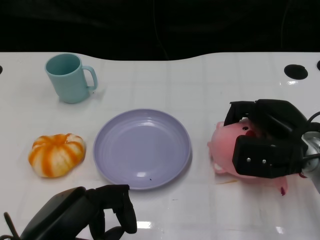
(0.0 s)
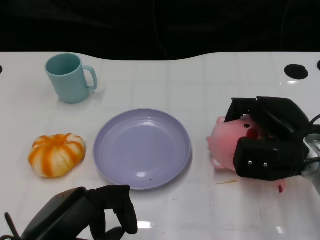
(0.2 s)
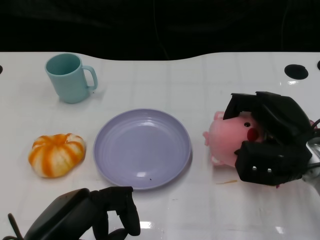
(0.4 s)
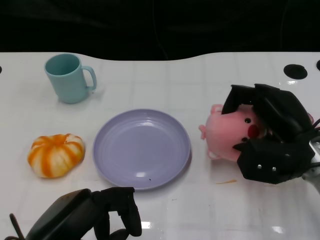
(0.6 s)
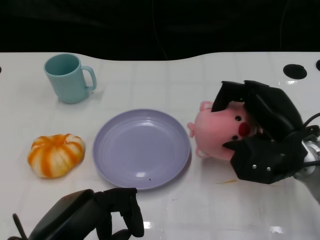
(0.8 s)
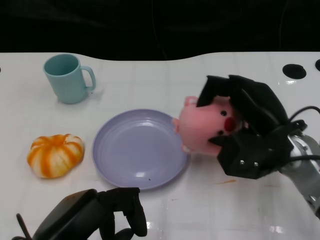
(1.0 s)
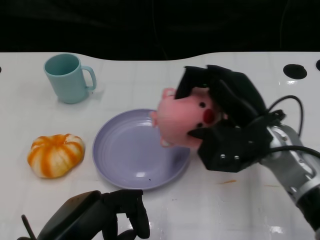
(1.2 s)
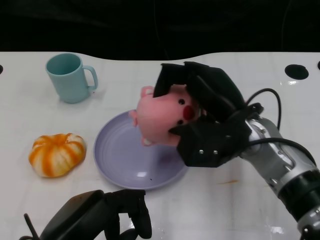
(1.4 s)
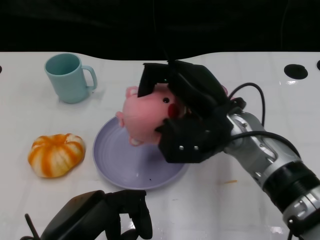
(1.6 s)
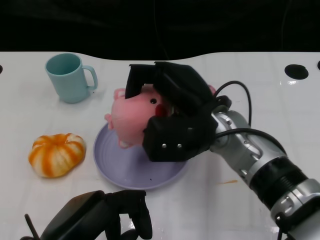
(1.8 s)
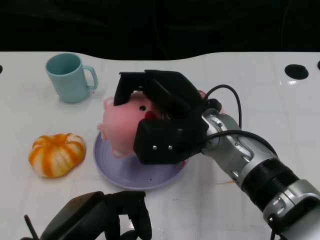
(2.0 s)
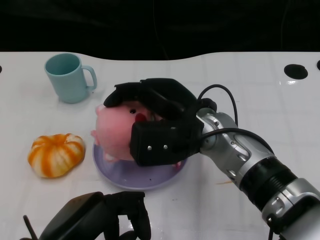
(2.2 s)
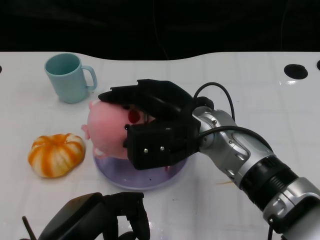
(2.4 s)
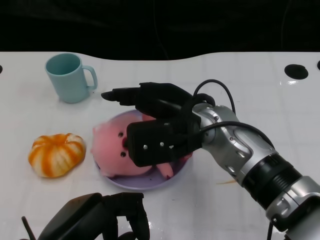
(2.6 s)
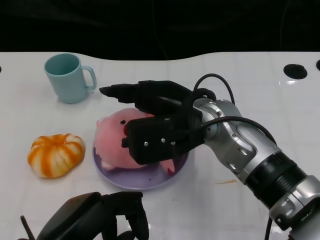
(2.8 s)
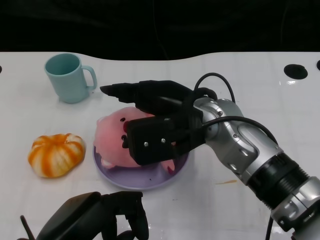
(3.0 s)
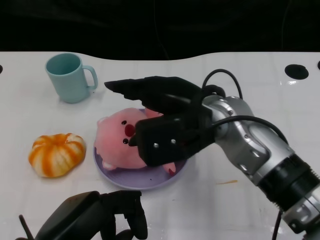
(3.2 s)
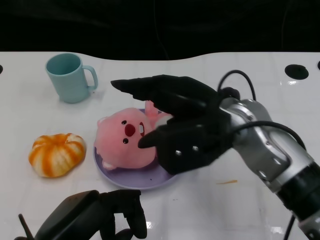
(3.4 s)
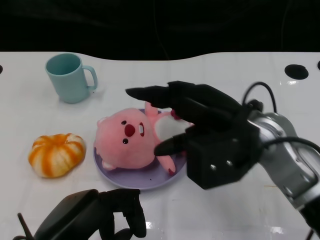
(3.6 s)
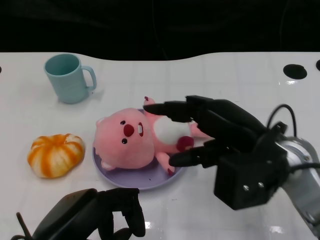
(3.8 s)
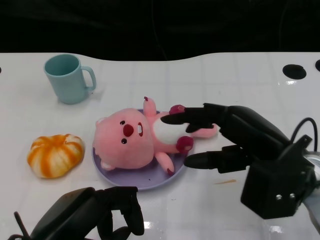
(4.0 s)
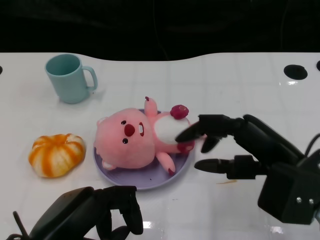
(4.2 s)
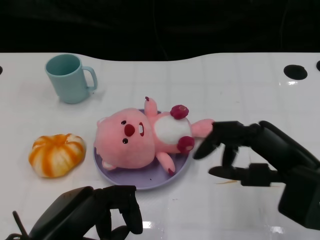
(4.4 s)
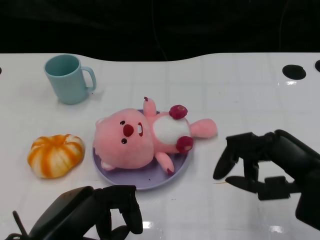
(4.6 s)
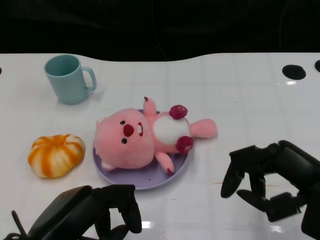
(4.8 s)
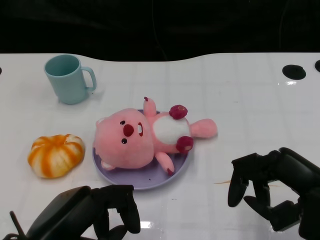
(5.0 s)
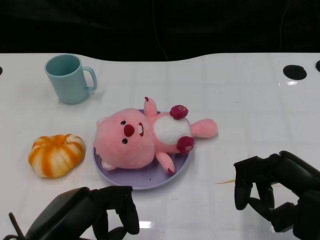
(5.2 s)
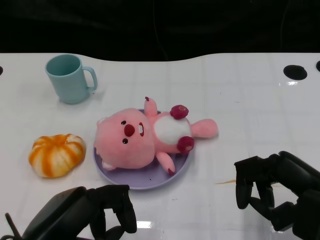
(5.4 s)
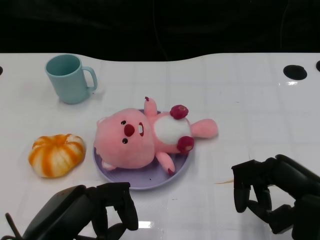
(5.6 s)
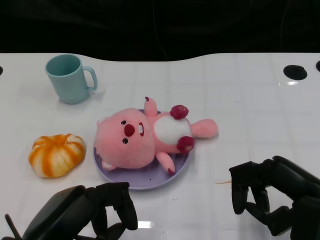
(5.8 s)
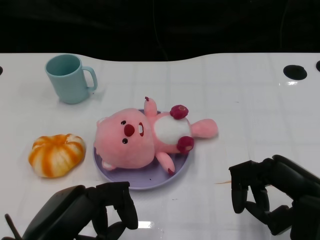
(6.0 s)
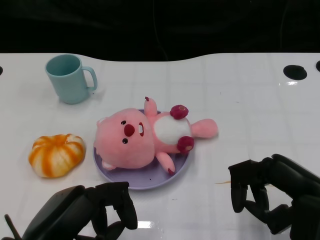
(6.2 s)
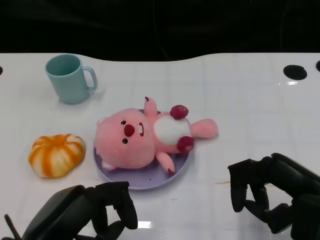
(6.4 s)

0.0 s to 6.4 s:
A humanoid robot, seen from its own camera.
Task of the whole recording: Pick up the doll on the other side of the plate and place it into the plate.
Step, 1.2 to 4.2 s: Place the pink doll into the plate with the right gripper.
0.0 to 1.6 s: The right hand shifts about 10 cm to the left.
3.2 to 4.8 s: The right hand shifts about 20 cm to the right and backward.
4.8 to 6.4 s: The hands make only small movements.

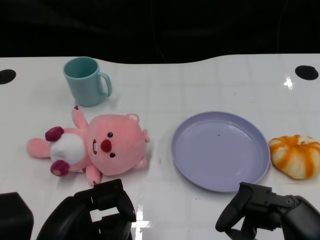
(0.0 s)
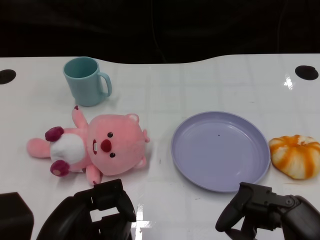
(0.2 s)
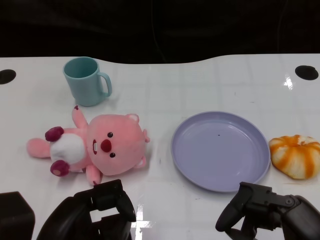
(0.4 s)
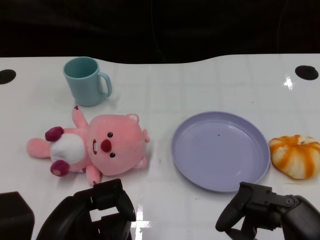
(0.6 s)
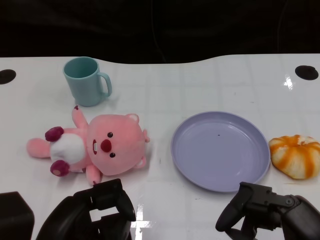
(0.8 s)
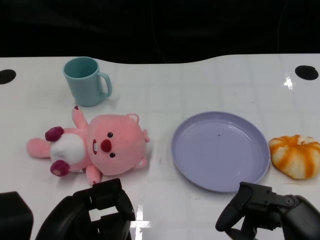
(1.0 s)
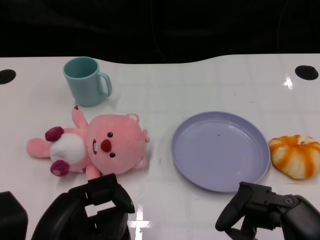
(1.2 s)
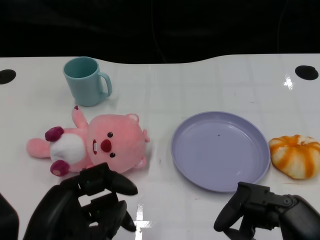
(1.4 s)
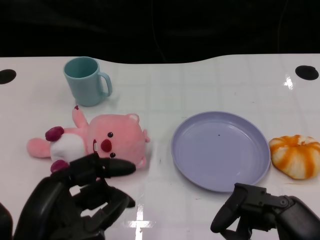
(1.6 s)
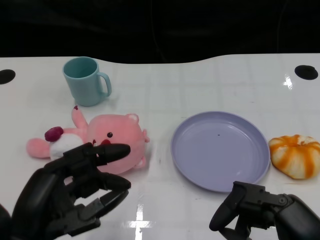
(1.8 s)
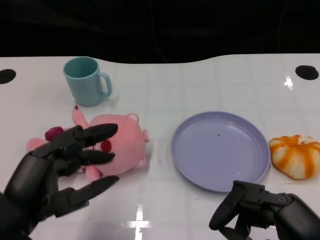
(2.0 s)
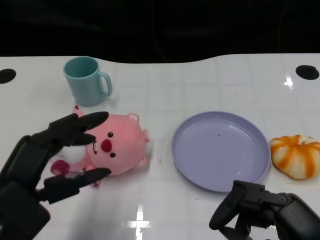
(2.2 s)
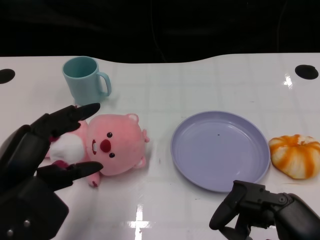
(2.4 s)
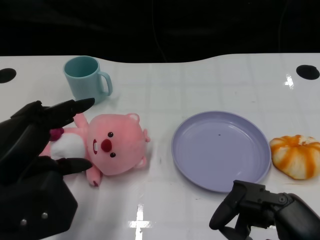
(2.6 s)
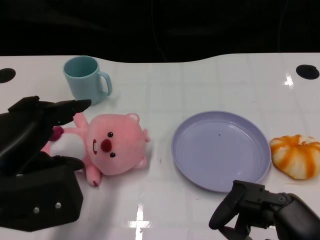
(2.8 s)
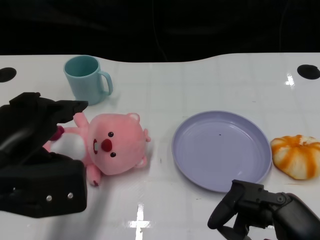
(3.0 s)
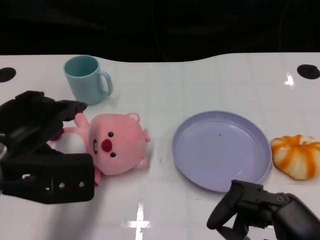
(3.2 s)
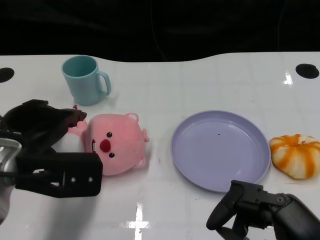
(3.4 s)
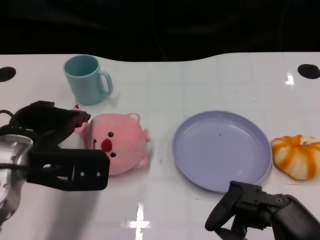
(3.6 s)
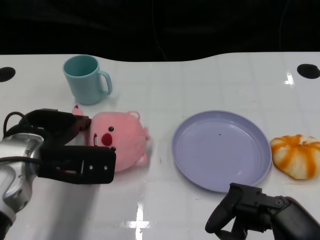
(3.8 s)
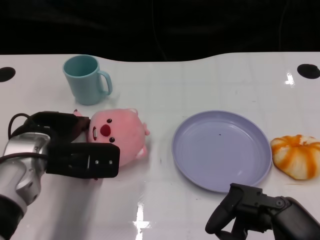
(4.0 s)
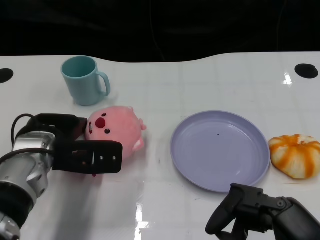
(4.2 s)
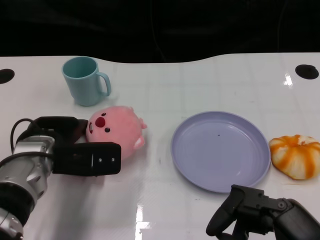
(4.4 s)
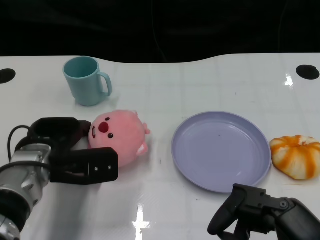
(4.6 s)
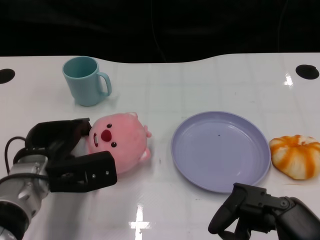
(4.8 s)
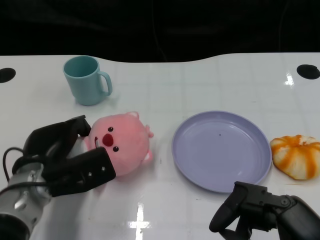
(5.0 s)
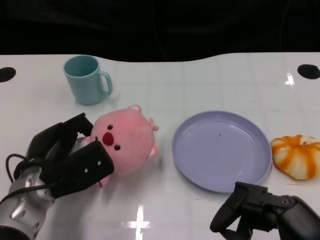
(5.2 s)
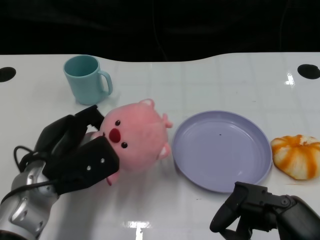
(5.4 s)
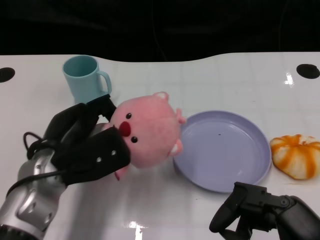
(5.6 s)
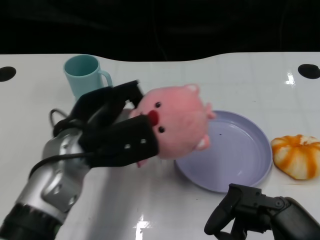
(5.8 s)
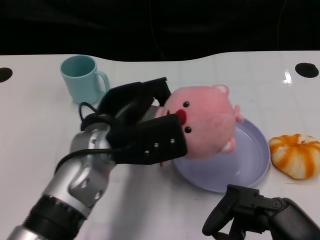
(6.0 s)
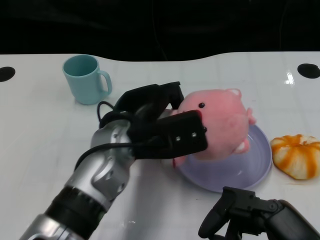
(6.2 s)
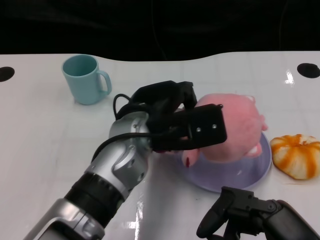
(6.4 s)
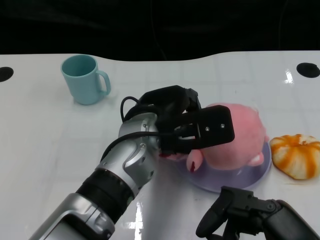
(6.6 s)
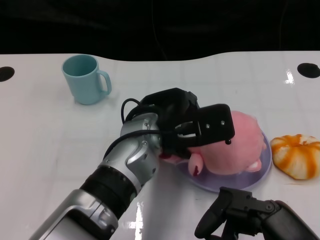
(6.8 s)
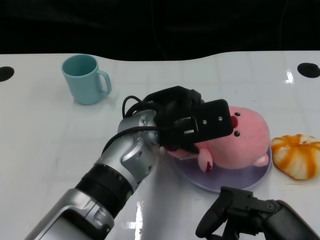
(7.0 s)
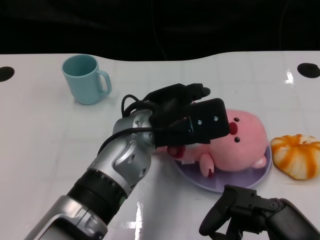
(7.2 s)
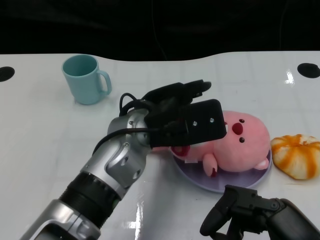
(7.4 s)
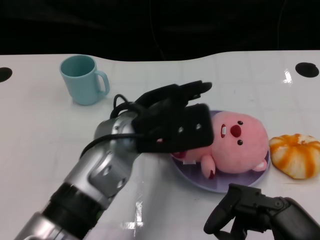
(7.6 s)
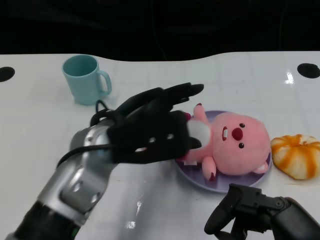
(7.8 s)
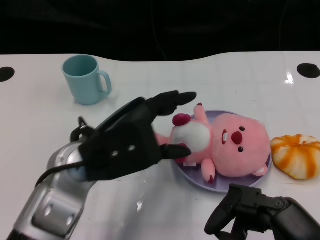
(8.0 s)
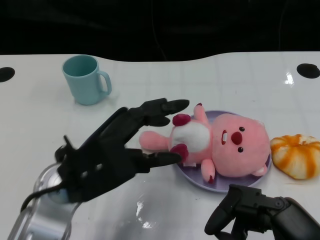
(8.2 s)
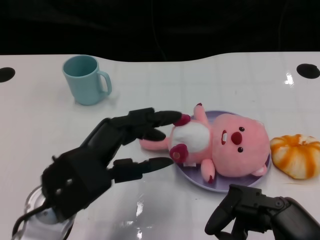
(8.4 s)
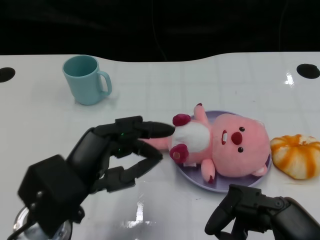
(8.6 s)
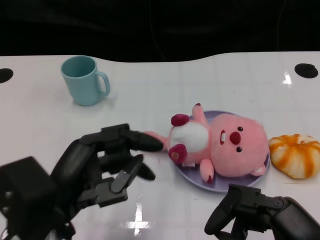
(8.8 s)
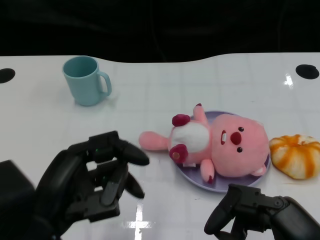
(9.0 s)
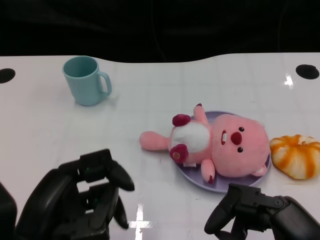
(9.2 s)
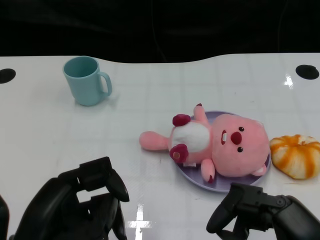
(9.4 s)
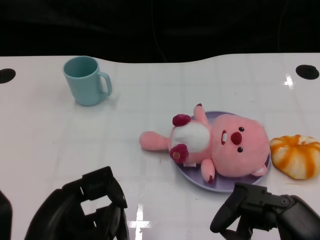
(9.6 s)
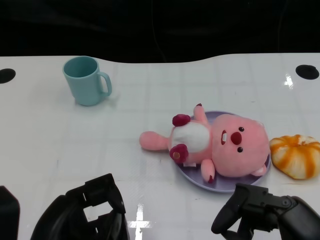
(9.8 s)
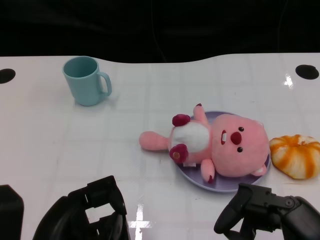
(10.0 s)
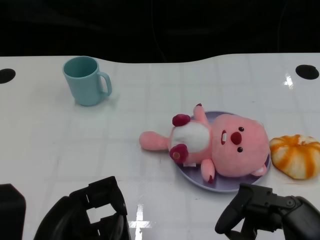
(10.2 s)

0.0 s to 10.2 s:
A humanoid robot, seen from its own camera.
Task of the whole recording: Pick up the doll on one side of the plate and place it into the plate.
Step, 1.0 to 5.0 s: Grasp the pink doll with the left gripper.
Step, 5.2 to 7.2 s: Place the pink doll into the plate with the left gripper.
1.4 to 3.0 s: The left hand travels forward and upward by some 10 cm.
3.0 to 4.4 s: The left hand goes about 15 cm forward and downward.
4.4 to 5.8 s: The left hand moves some 5 cm.
5.8 to 7.2 s: The left hand moves to the right, about 10 cm.
7.2 to 8.8 s: The left hand heads to the left and backward, covering approximately 20 cm.
8.8 to 10.2 s: The left hand moves backward, about 5 cm.

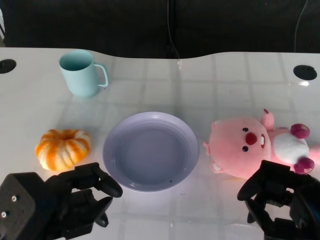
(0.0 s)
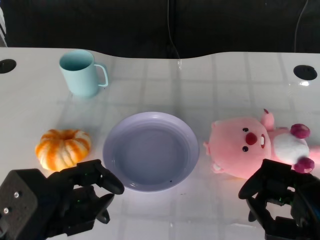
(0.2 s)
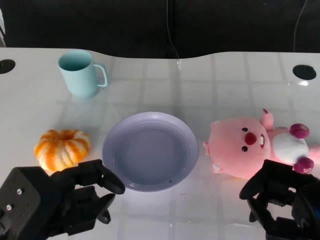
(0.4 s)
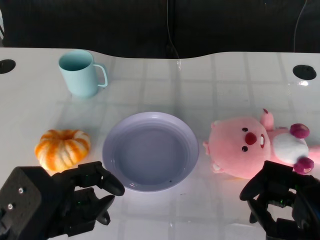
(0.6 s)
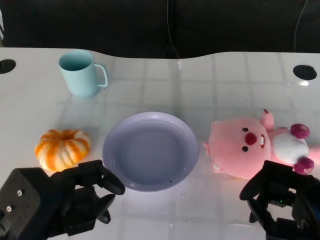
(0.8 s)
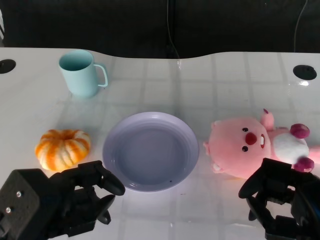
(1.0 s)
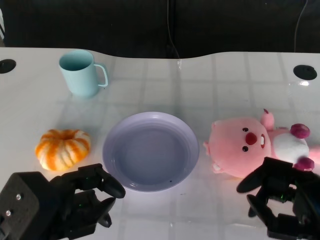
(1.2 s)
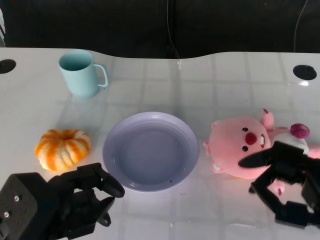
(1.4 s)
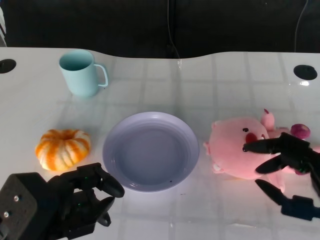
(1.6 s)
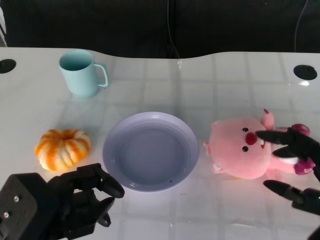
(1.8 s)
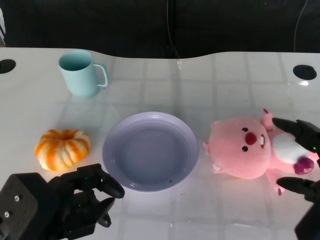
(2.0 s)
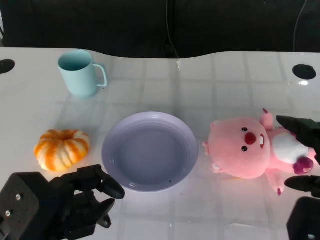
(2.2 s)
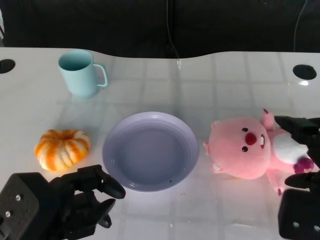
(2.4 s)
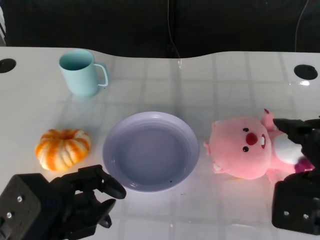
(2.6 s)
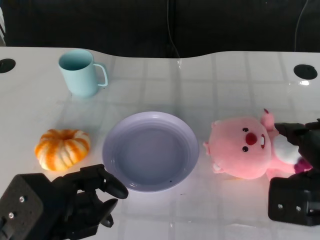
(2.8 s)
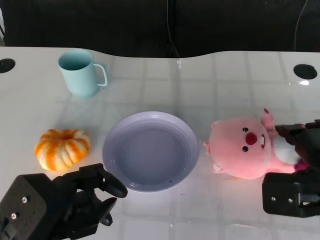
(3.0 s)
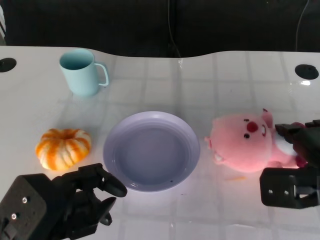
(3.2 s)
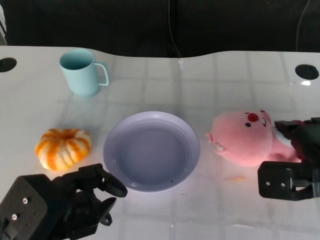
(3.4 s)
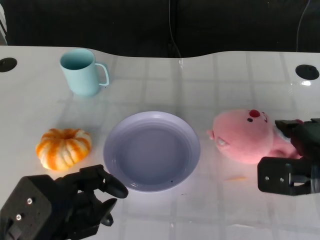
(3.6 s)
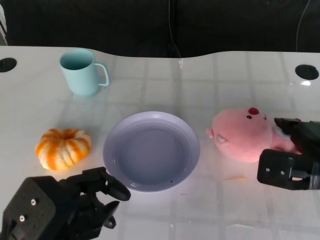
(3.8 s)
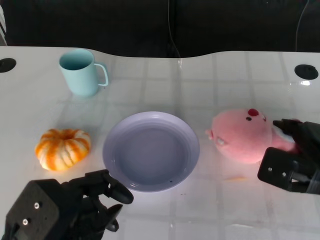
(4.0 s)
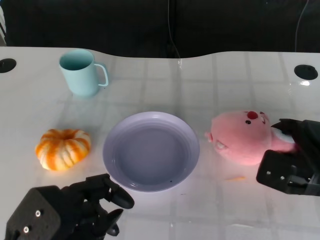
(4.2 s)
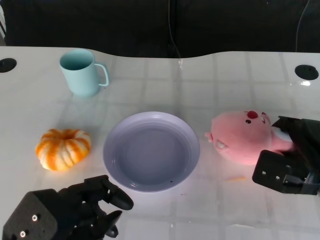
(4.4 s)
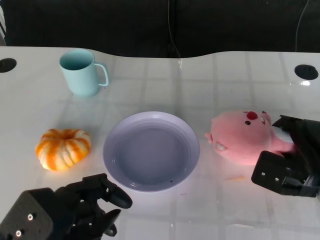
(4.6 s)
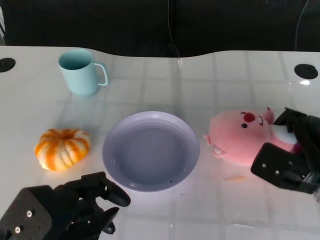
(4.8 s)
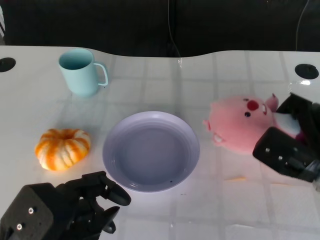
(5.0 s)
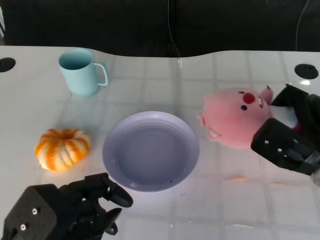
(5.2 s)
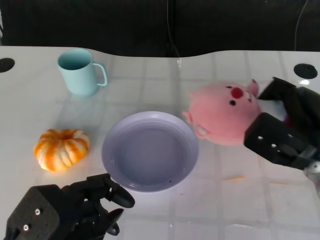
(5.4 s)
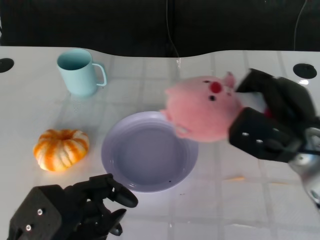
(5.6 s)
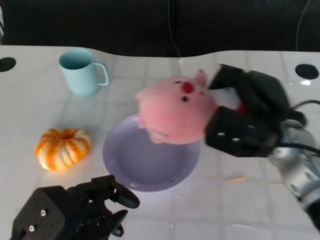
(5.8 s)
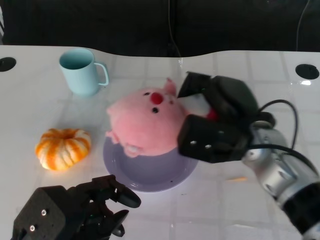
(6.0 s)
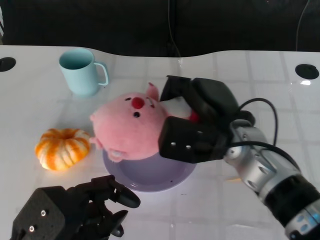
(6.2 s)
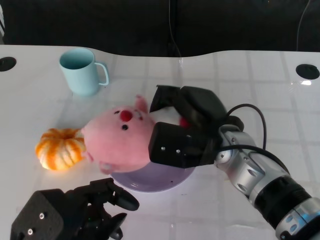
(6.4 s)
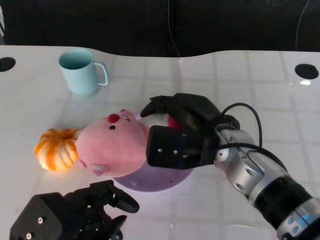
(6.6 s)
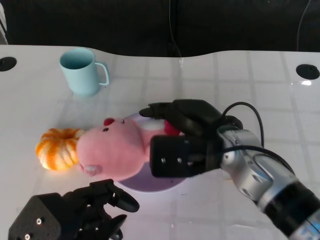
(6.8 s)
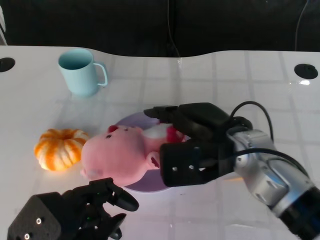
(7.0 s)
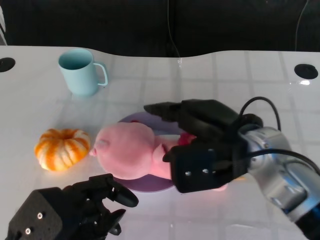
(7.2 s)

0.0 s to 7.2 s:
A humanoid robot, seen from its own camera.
Task of the whole recording: Pick up the doll on the other side of the plate and place it into the plate.
Step, 1.4 to 5.4 s: Grasp the pink doll with the right gripper.
1.4 to 2.8 s: The right hand is displaced forward by approximately 5 cm.
2.8 to 4.4 s: The right hand shifts roughly 10 cm downward and forward.
4.4 to 5.8 s: The right hand shifts about 10 cm upward and to the left.
5.8 to 7.2 s: The right hand shifts by roughly 5 cm.
